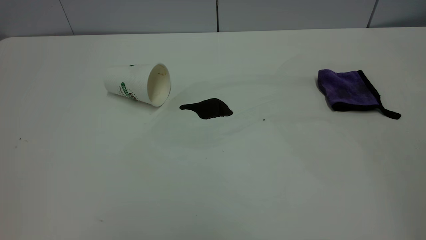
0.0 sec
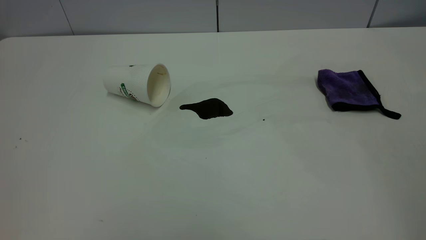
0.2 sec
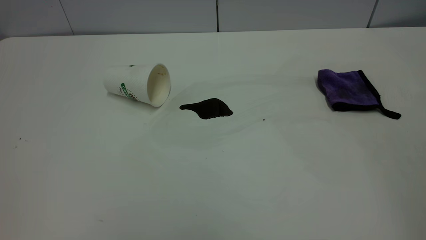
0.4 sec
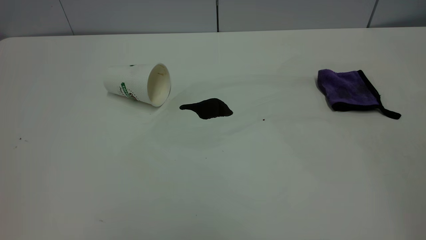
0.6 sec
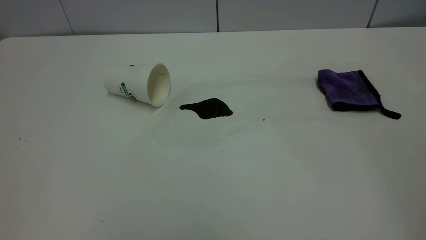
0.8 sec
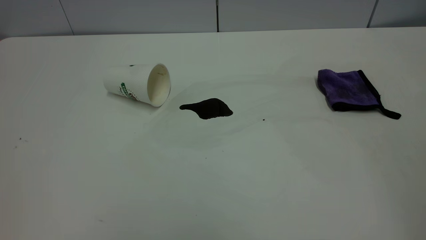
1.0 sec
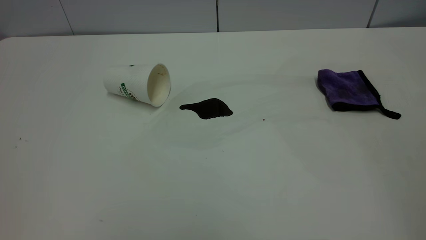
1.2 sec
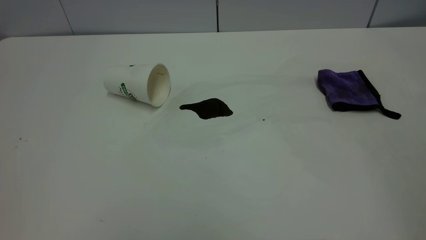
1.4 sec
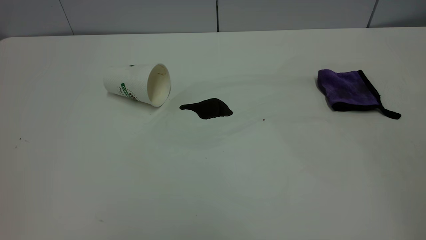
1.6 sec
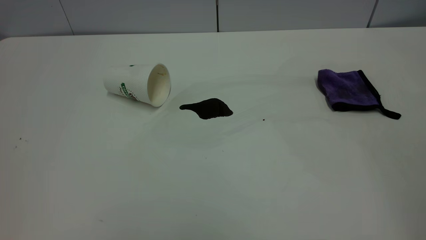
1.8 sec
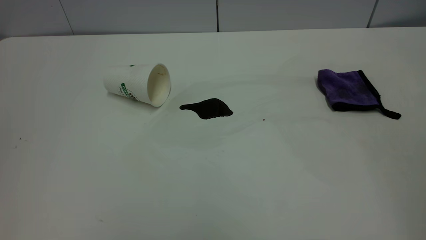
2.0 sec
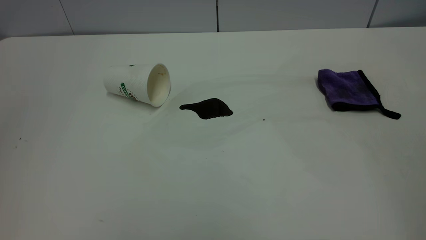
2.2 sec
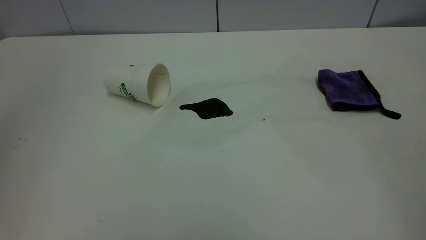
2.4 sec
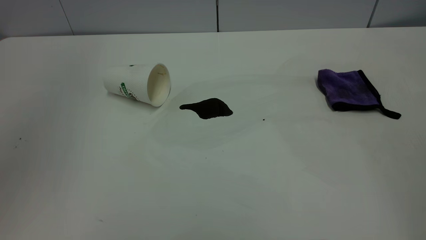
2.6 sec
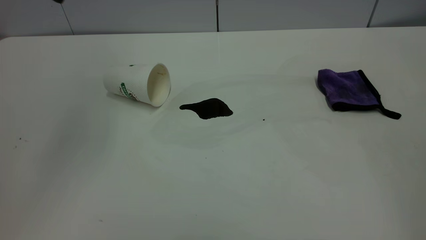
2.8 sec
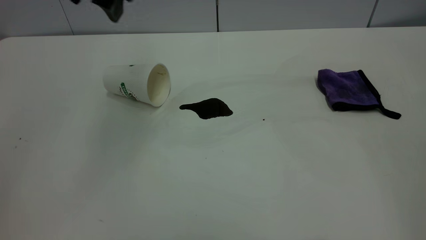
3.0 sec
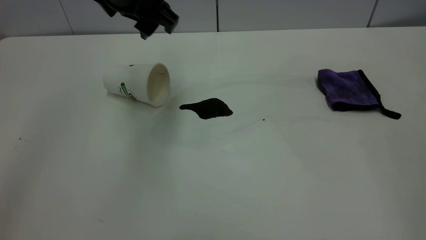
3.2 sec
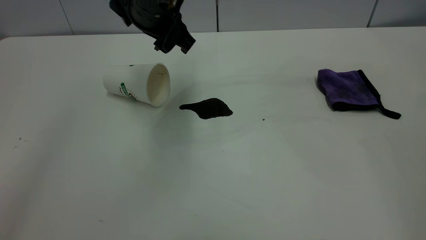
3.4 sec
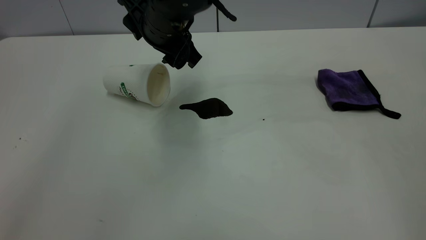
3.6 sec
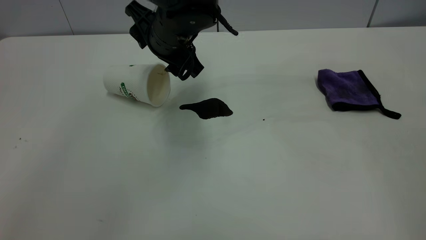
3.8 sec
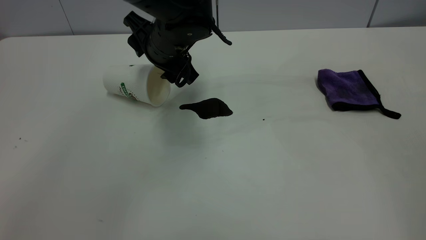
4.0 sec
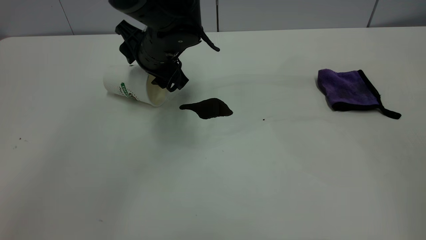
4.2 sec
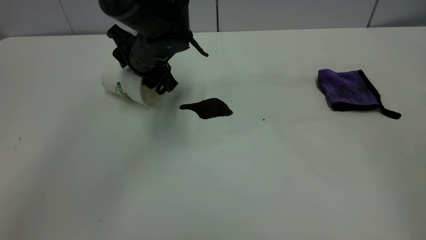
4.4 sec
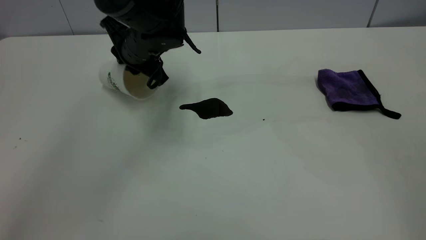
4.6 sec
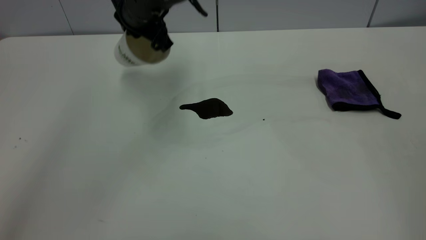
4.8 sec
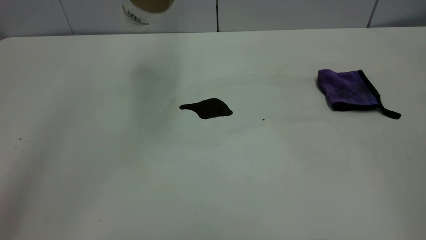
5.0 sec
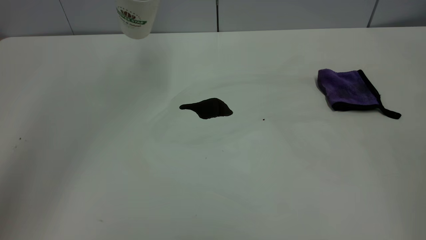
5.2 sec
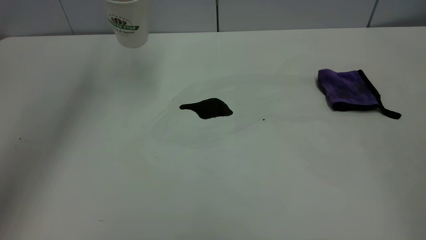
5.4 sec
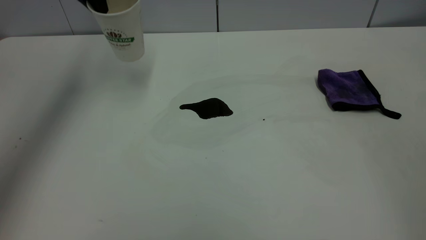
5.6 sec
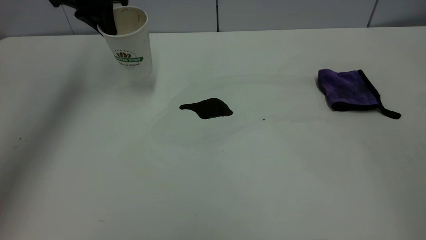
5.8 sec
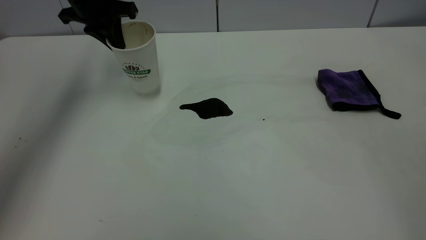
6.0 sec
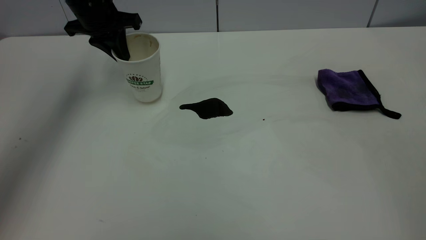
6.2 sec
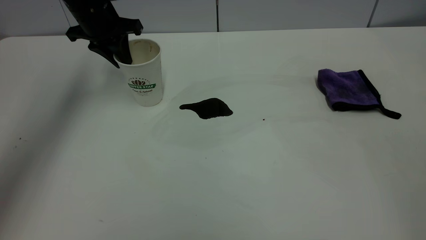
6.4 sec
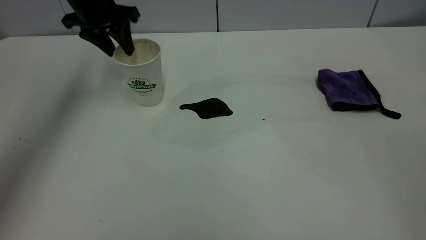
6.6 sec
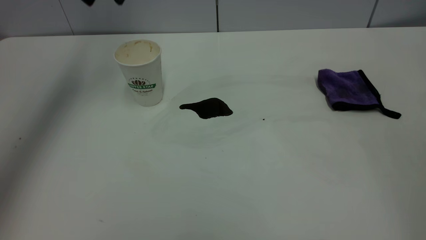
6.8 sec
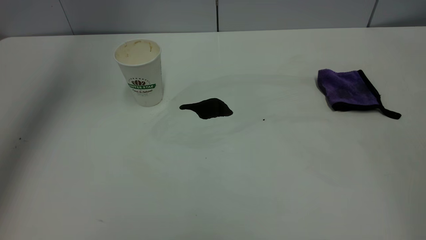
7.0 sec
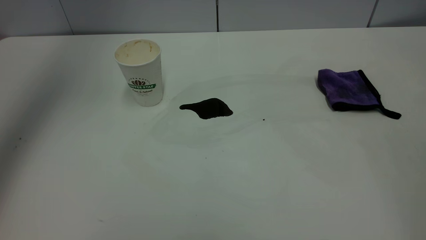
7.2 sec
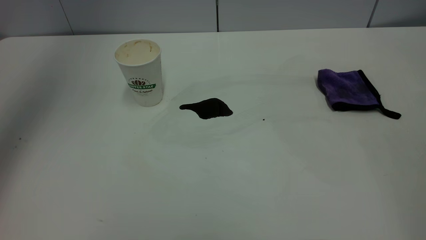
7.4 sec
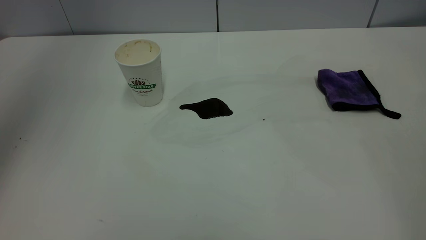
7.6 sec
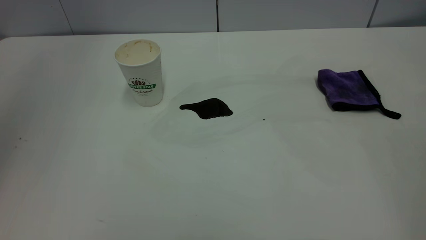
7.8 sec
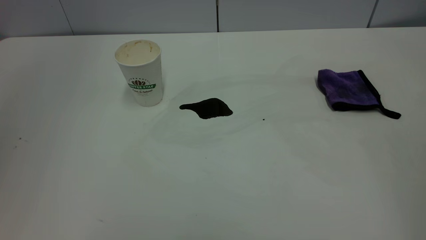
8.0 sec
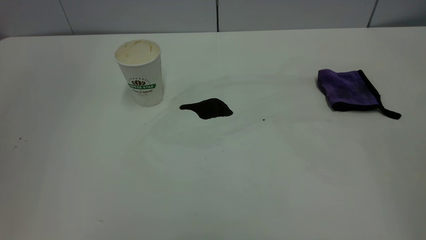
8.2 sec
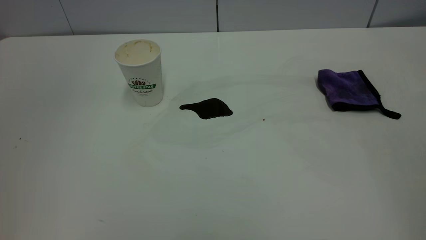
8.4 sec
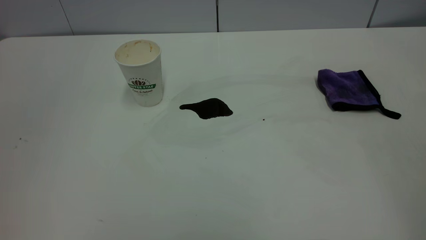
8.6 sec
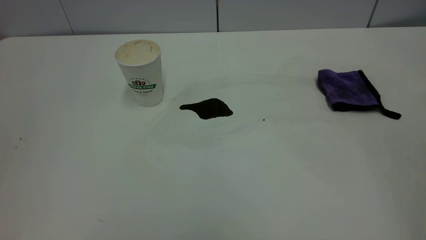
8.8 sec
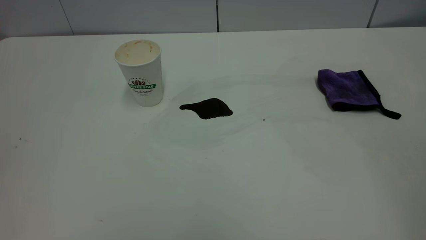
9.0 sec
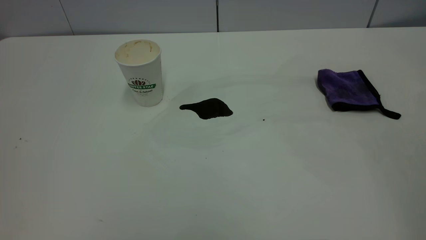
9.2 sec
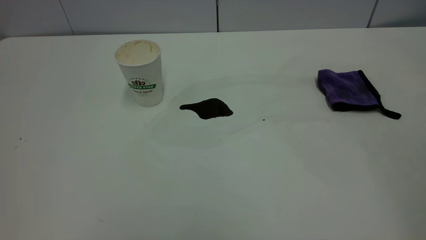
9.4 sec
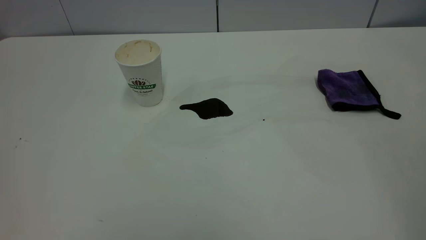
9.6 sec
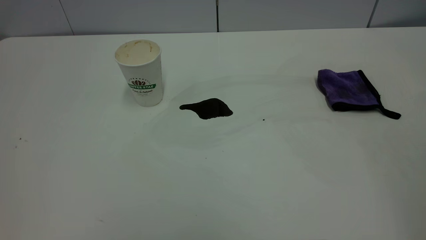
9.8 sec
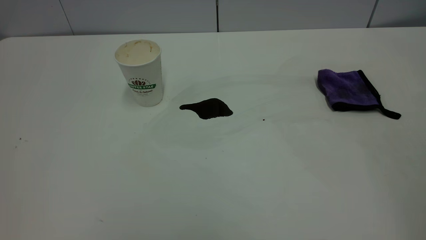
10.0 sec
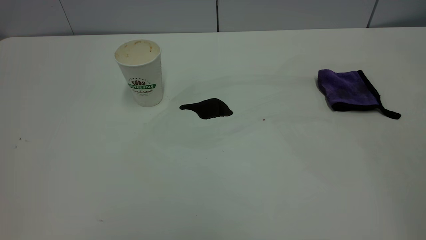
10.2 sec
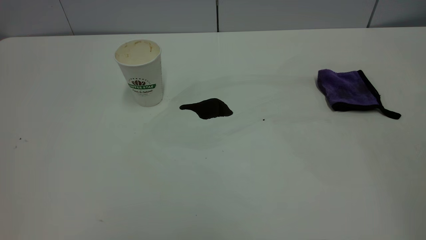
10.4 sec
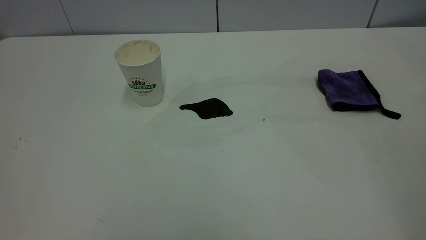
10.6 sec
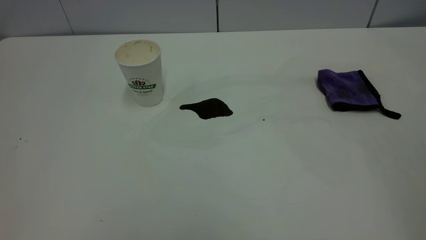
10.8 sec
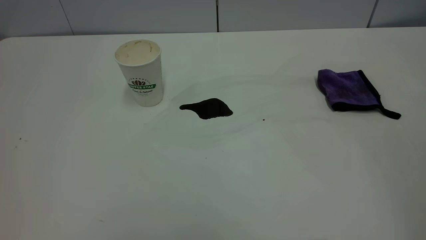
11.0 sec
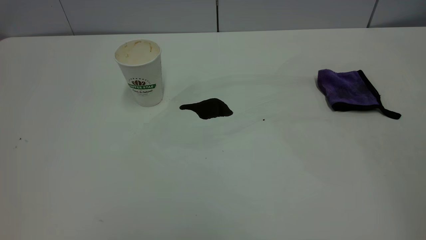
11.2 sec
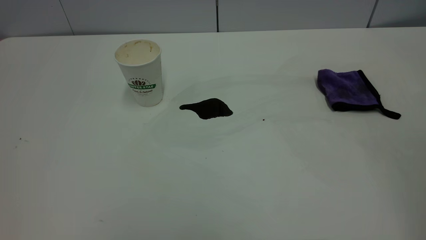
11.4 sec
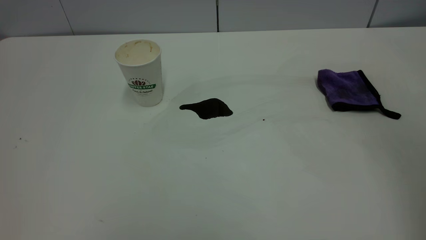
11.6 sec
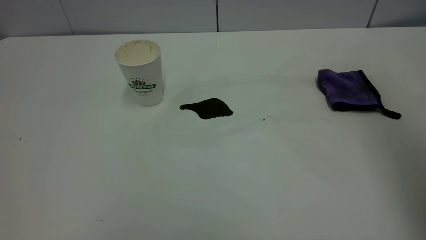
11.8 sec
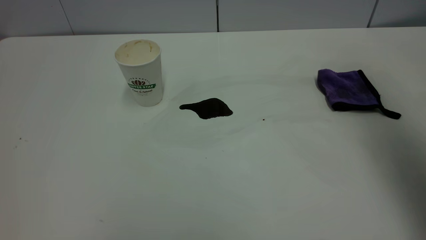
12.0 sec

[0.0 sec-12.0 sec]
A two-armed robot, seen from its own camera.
Task of the whole recording: the left gripper pick up the fallen cup and place it upright, the right gripper grasp the purple rag and wipe the coffee stain on the table, the right gripper put the purple rag back in its original position.
Step, 0.0 sec to 6.6 sec: Stand the paper cup upright.
0.0 sec to 1.6 sec: The two grippers keep their place.
1.6 sec to 3.0 sec: The left gripper heads forward and to the right, covering approximately 40 cm.
3.0 sec to 4.4 sec: The left gripper goes roughly 20 cm downward and forward.
4.4 sec to 6.0 sec: The left gripper goes roughly 15 cm to the left, upward and forward, and closes up.
6.0 sec to 7.6 sec: The left gripper moves upward and backward, approximately 35 cm, and opens up.
7.6 sec to 9.0 sec: The left gripper goes approximately 30 cm backward and downward.
10.4 sec to 12.0 sec: The right gripper shifts roughly 25 cm forward.

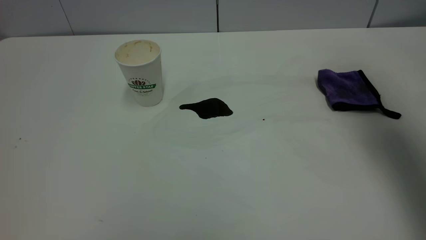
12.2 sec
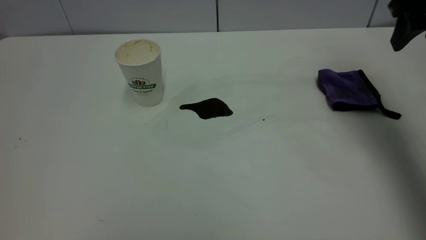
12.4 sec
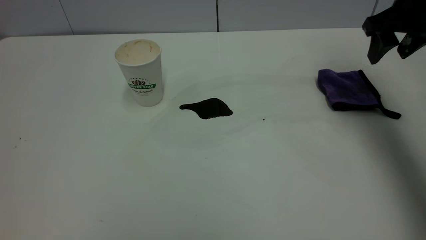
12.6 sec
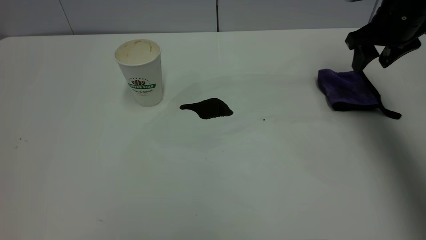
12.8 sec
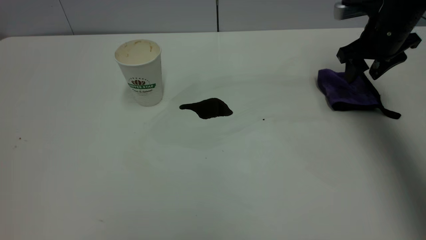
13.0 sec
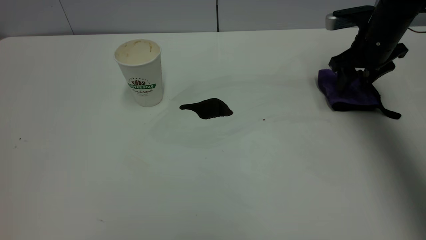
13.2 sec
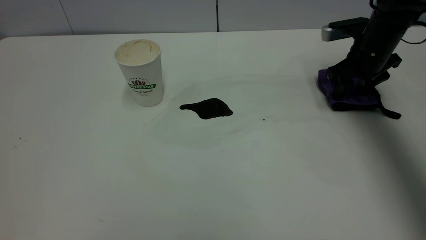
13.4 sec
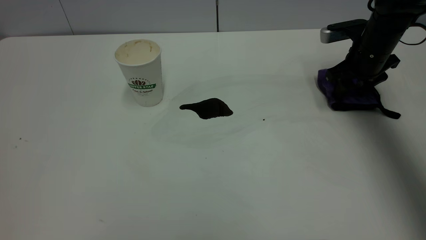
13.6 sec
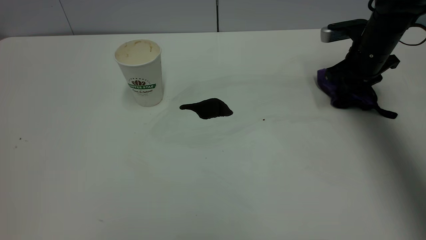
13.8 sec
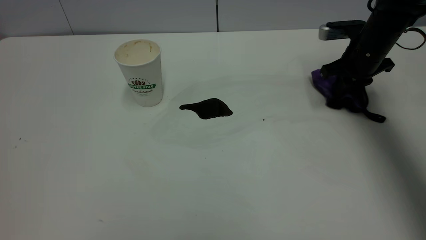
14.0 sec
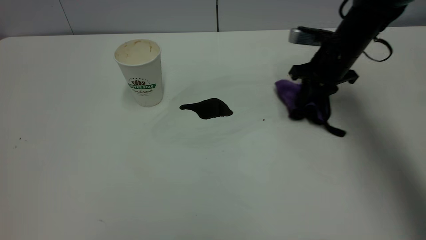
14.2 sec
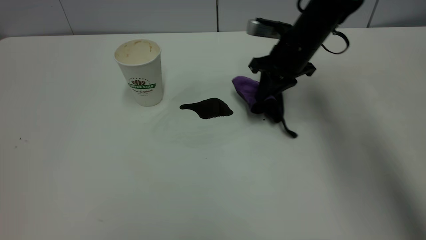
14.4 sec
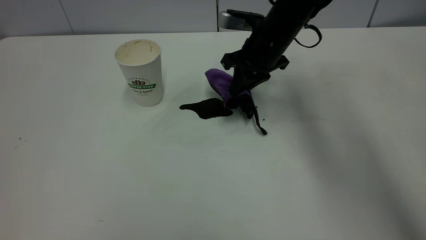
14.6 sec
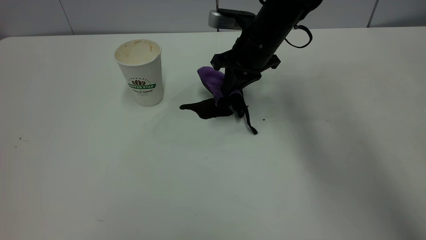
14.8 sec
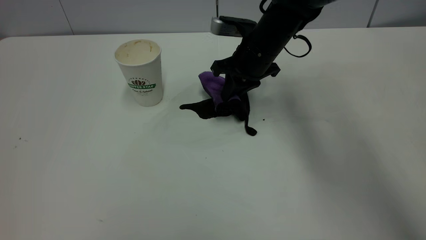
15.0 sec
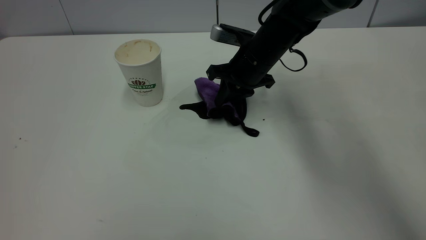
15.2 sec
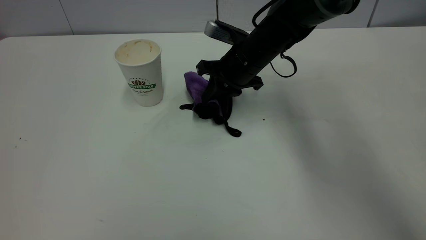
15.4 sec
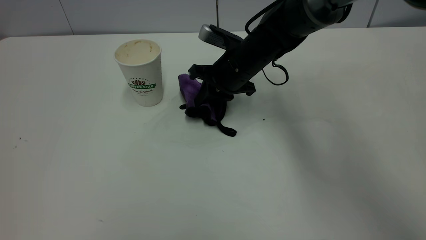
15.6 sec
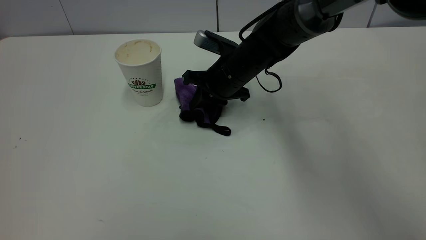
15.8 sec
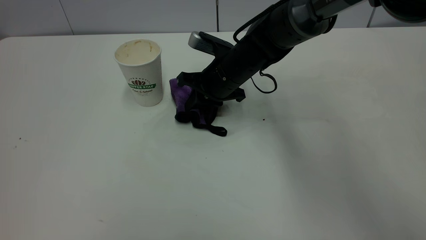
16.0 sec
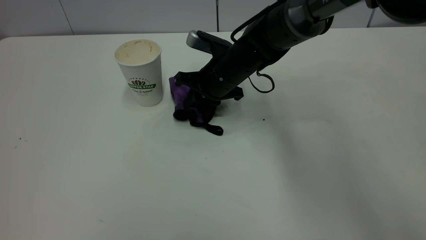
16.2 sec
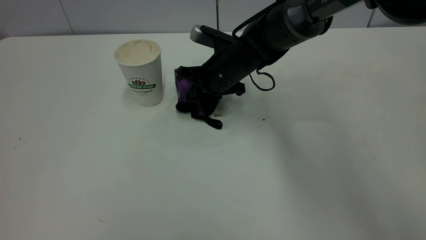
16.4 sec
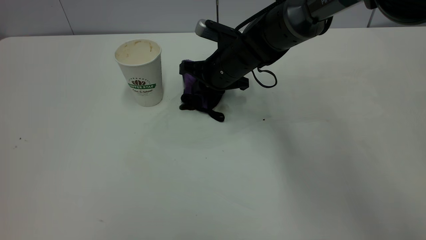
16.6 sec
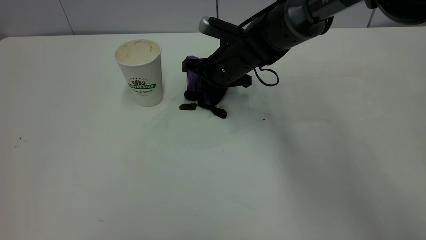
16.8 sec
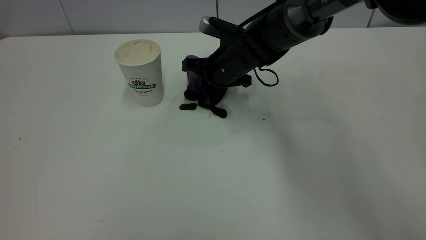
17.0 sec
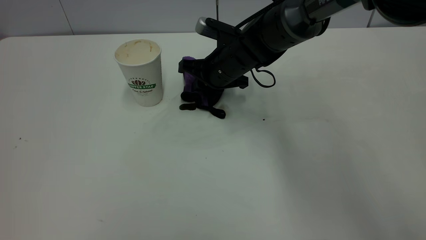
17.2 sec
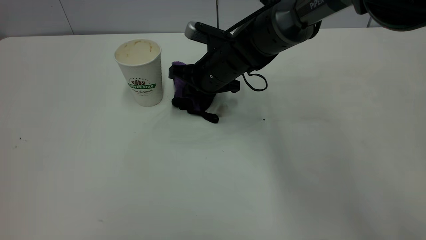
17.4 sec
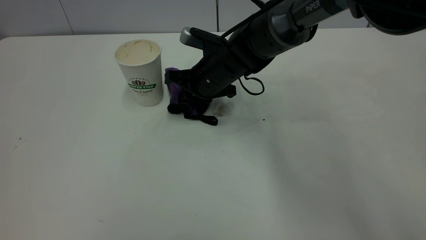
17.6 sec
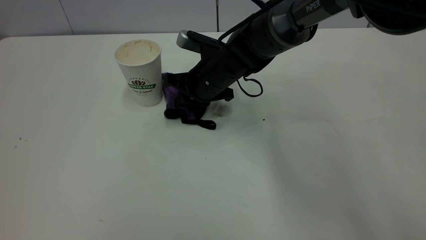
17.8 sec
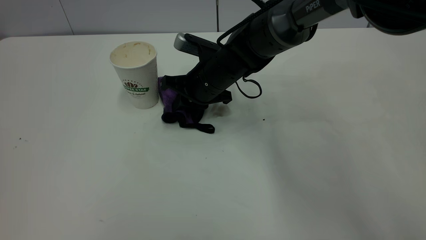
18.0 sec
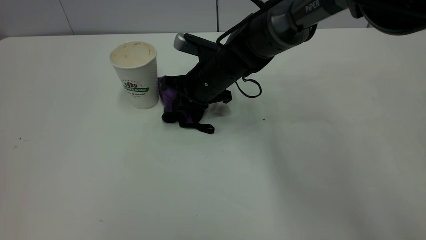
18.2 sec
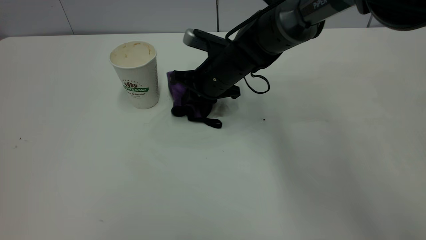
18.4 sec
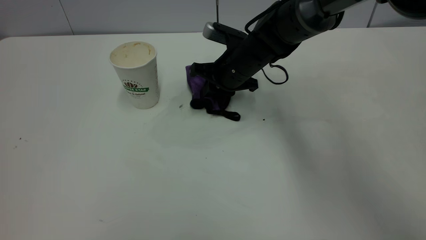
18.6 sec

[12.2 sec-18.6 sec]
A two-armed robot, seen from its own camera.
Task of the whole recording: the left gripper pick up the fallen cup and place it upright, the right gripper grasp the purple rag and wipe the coffee stain on the table, the right gripper put the purple rag back in its original position.
12.2 sec to 13.8 sec: The right gripper travels downward and forward by approximately 25 cm, and closes.
13.8 sec to 15.4 sec: The right gripper goes approximately 20 cm to the left.
17.0 sec to 18.6 sec: The grippers move only a little.
